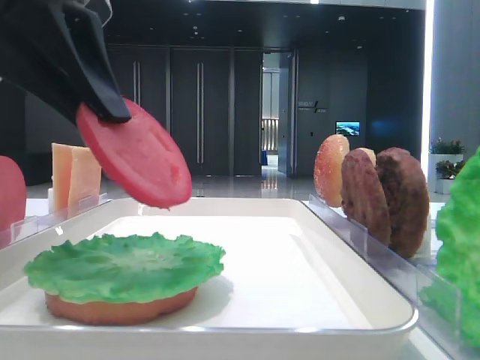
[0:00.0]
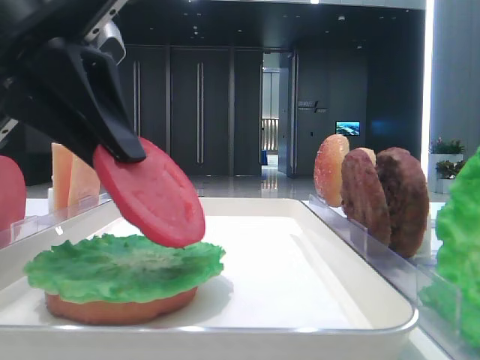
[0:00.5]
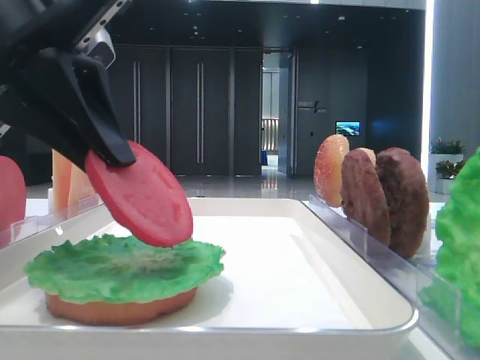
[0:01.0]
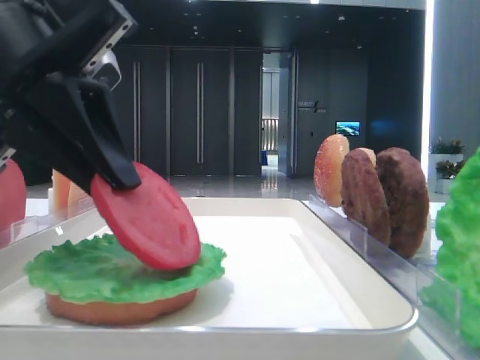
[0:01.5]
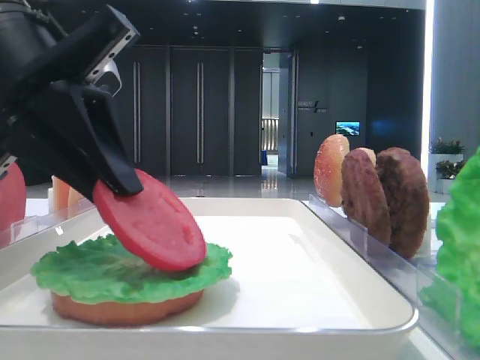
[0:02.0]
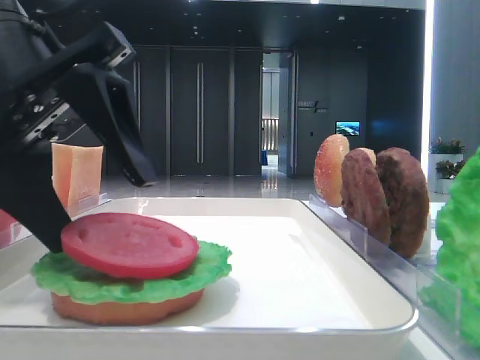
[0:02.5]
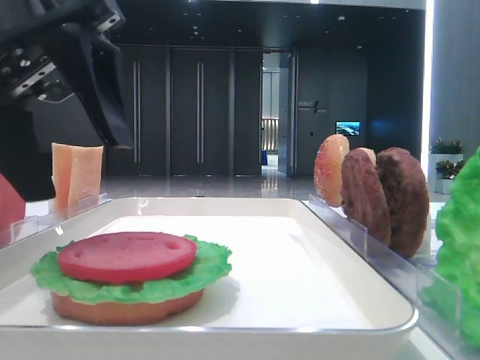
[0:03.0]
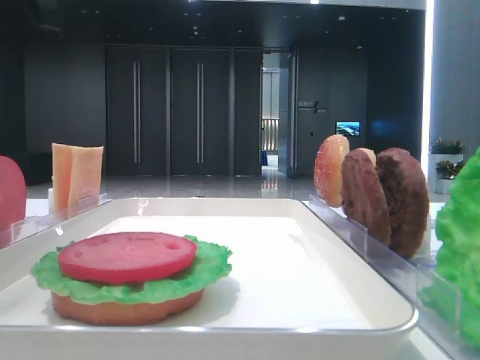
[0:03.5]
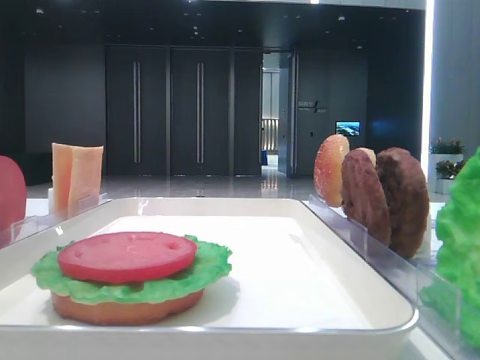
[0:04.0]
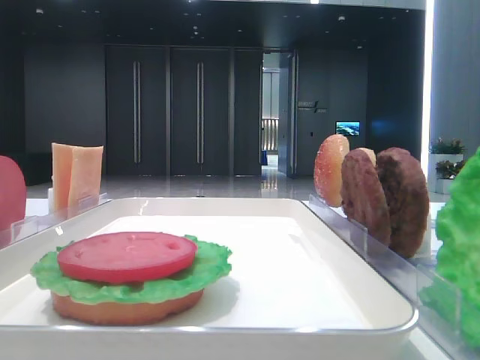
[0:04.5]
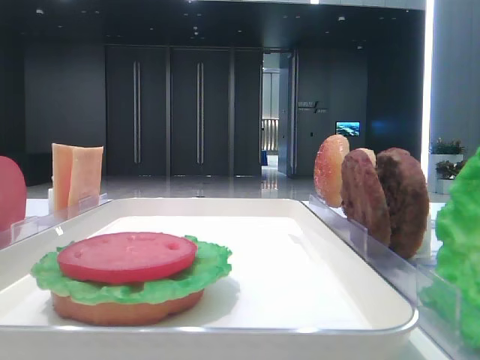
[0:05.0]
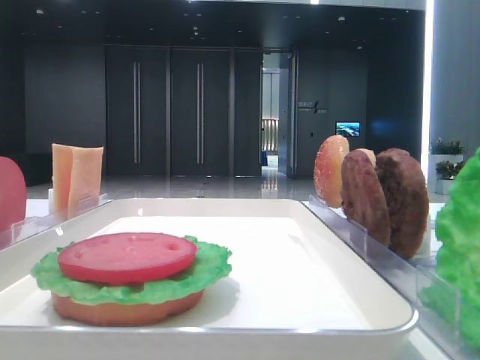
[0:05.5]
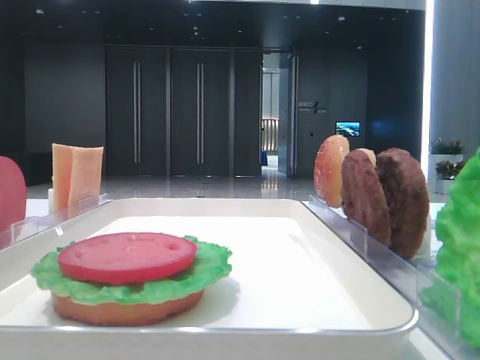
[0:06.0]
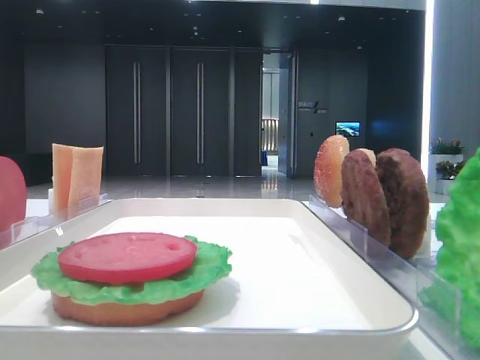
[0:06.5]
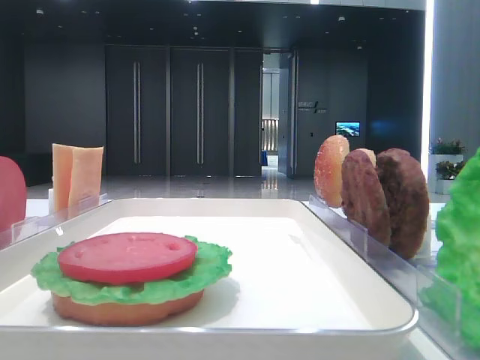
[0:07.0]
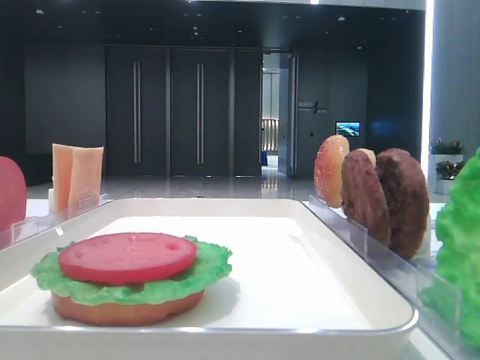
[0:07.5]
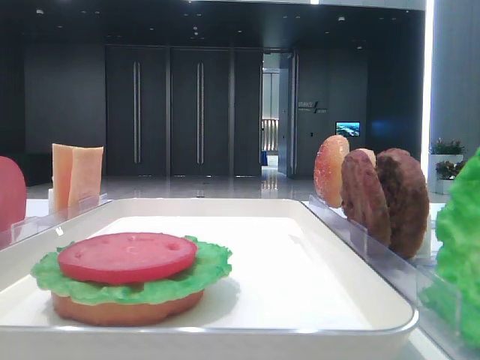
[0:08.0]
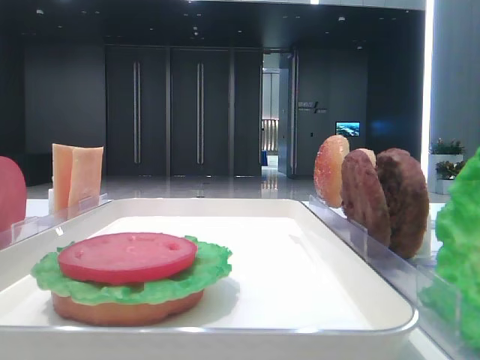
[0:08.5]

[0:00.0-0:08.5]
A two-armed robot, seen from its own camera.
Step, 0:00.0 to 0:02.5: Place the tomato slice on the lettuce leaf with the left hand.
0:00.0 to 0:02.0: The left gripper changes place by about 5 cm.
0:02.0 to 0:04.0: The left gripper goes about 15 cm upward and to the left, and opens its fingers.

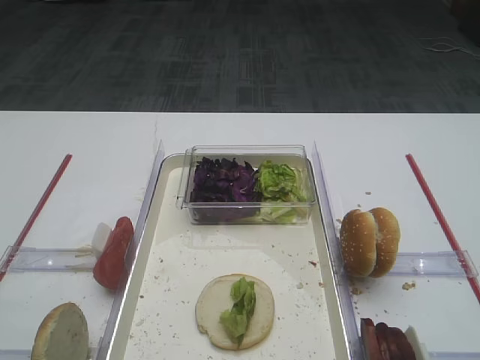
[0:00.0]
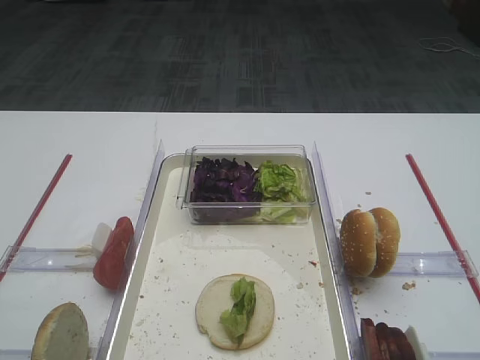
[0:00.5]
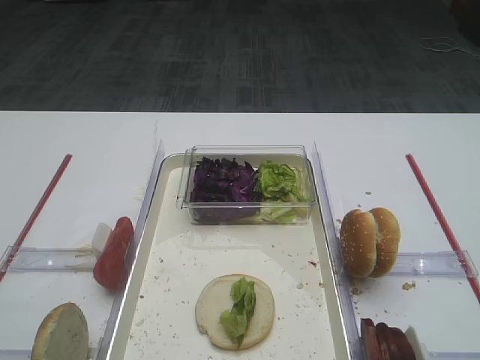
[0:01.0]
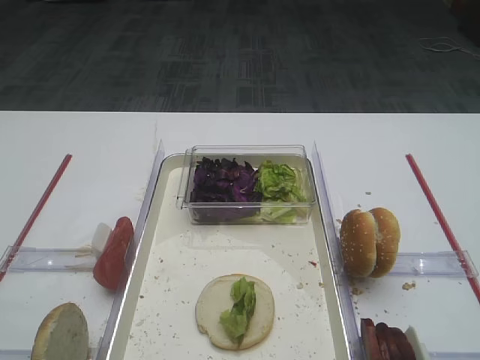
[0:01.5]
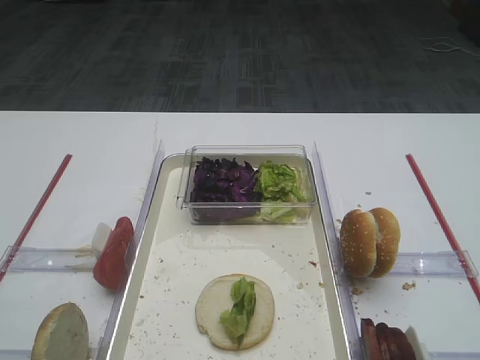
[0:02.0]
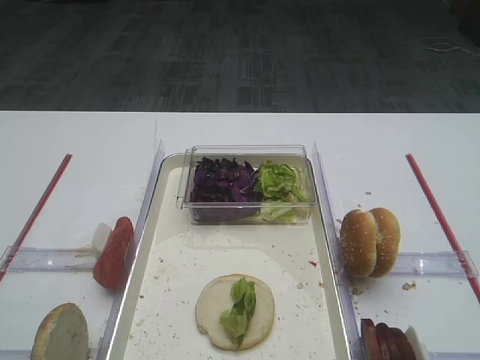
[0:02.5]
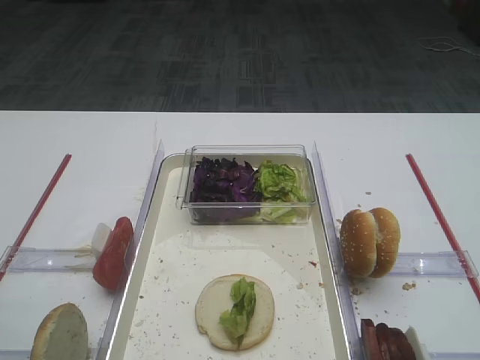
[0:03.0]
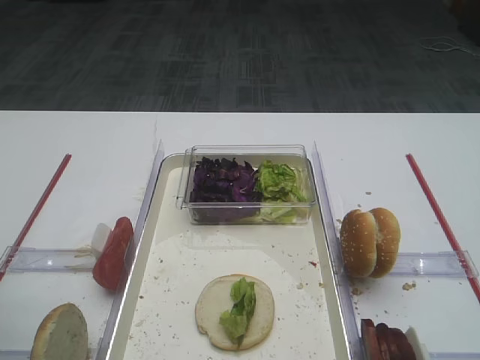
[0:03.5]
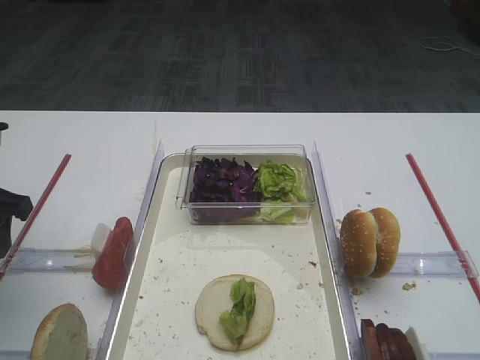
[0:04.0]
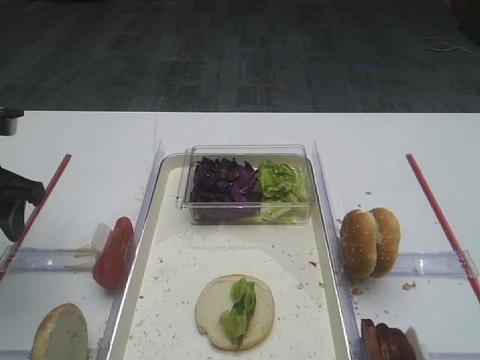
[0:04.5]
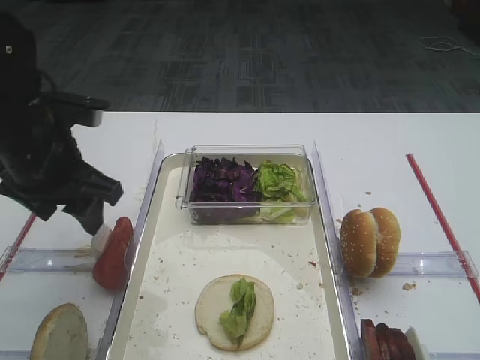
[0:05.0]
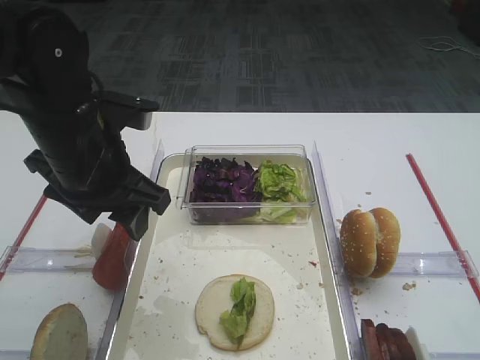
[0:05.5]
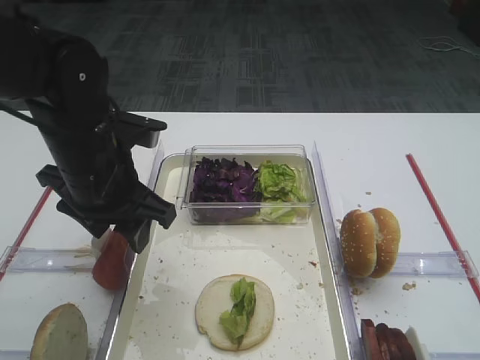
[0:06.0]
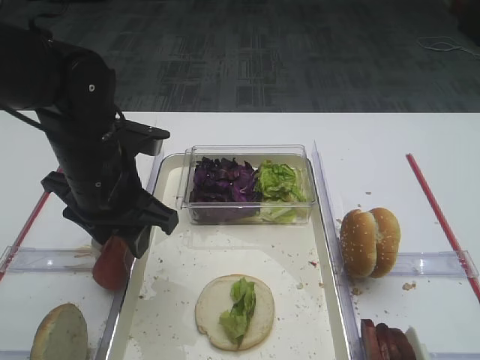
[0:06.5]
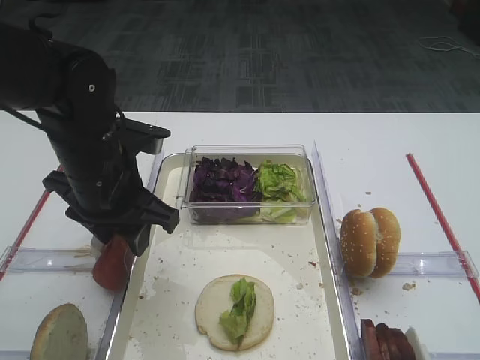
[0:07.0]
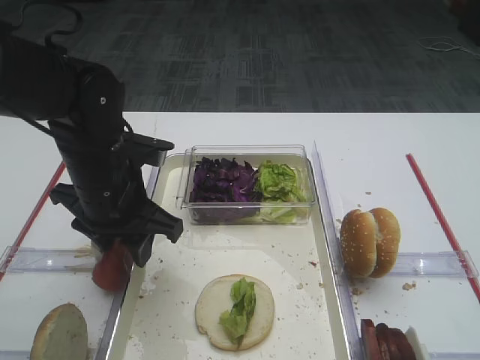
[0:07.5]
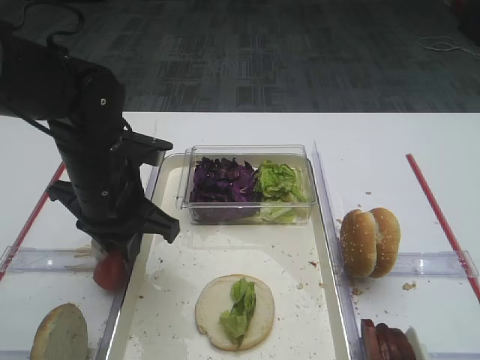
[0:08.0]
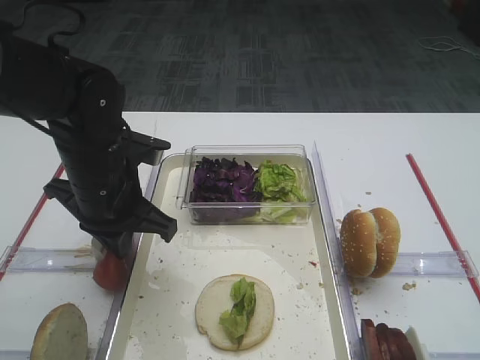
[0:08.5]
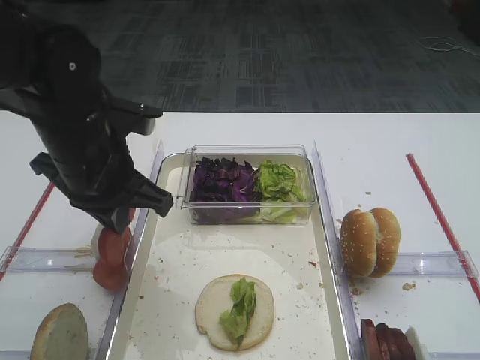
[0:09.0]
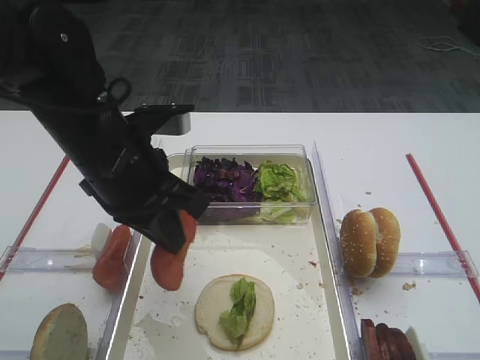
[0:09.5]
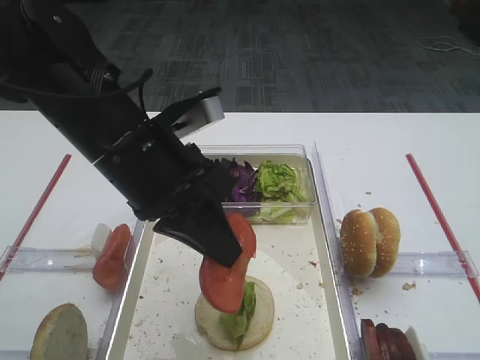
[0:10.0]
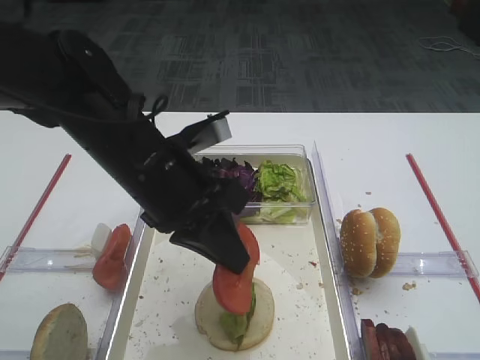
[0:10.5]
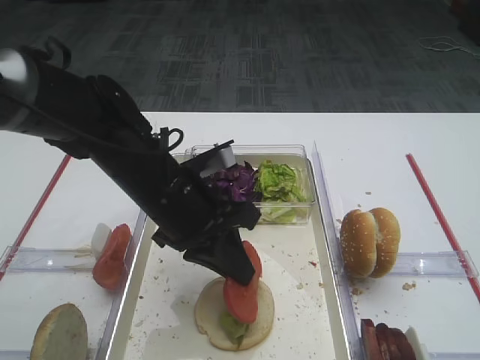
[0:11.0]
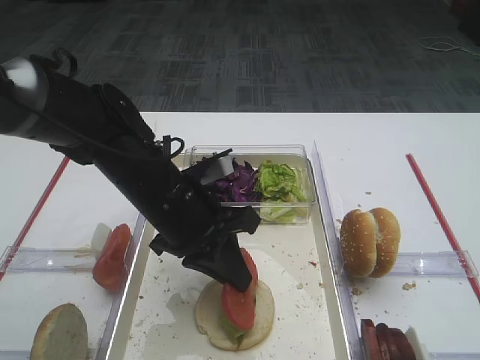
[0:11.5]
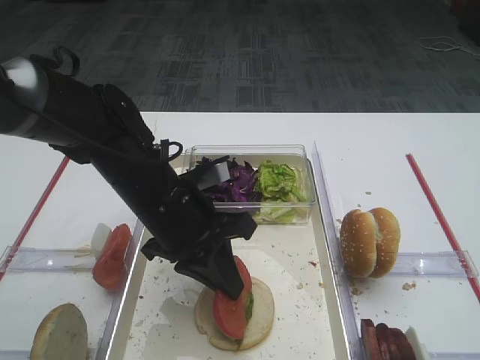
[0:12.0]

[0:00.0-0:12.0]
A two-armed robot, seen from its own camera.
Step, 0:00.0 to 0:09.0: Pick up the tomato slice with the left gripper.
0:02.0 to 0:04.0: The left gripper heads forward, covering about 30 cm.
0:04.0 to 0:06.0: The left gripper is displaced to the right by some 15 cm.
0:06.0 to 0:08.0: The left gripper closes its fingers.
0:08.0 to 0:10.0: The left gripper goes about 10 cm upward and backward, and closes its fingers.
0:10.0 to 0:12.0: The left gripper is displaced downward by roughly 10 cm.

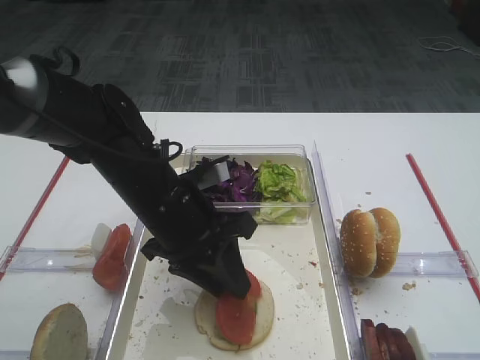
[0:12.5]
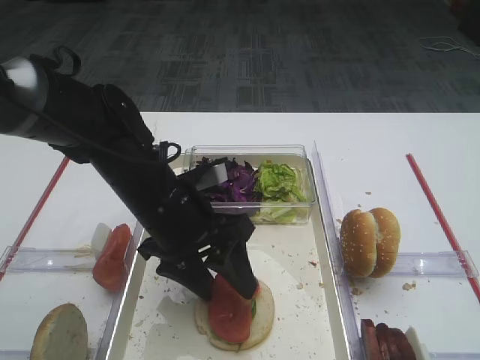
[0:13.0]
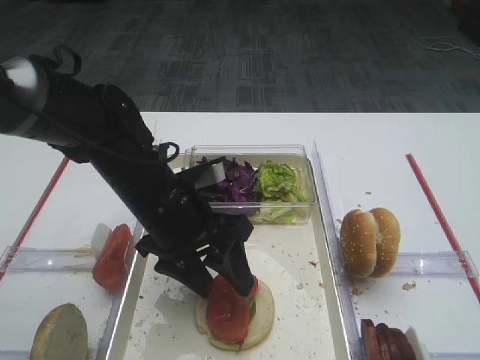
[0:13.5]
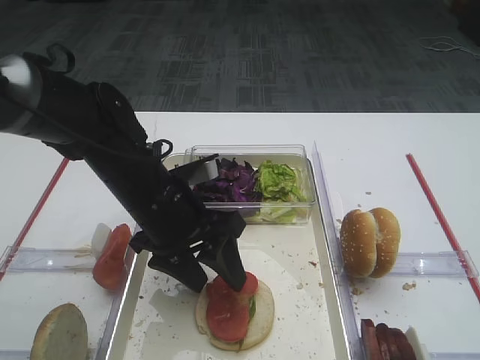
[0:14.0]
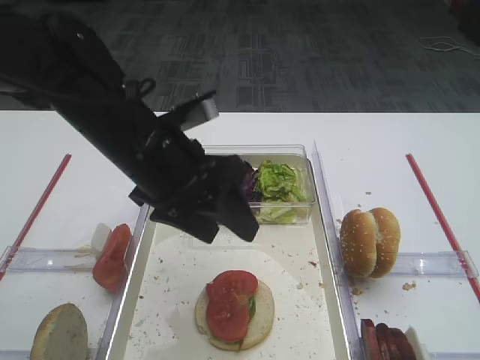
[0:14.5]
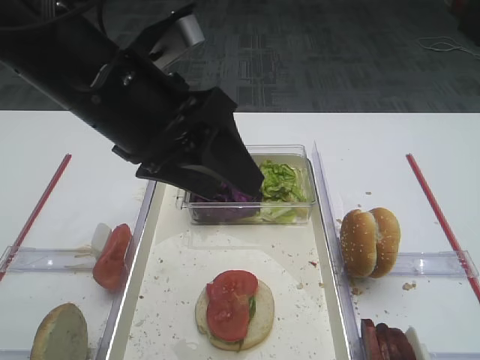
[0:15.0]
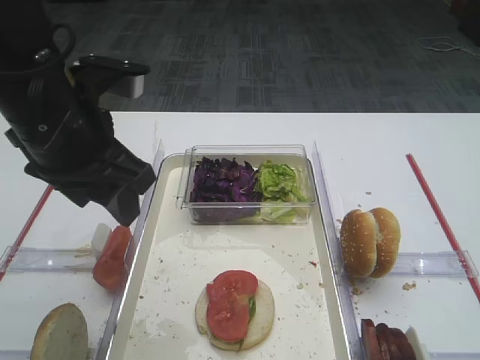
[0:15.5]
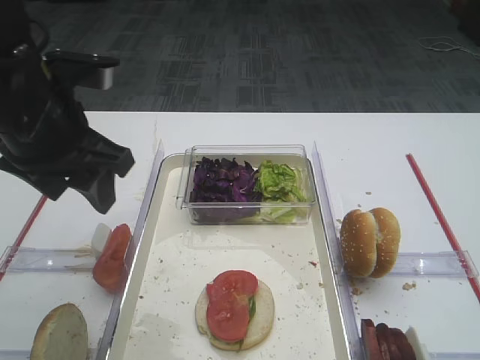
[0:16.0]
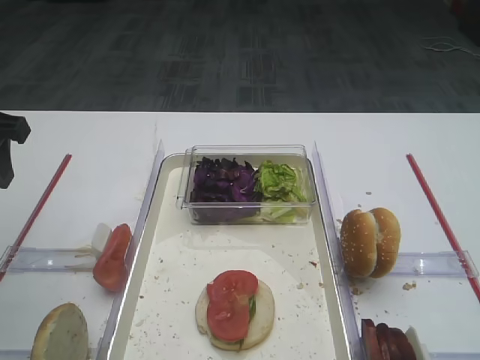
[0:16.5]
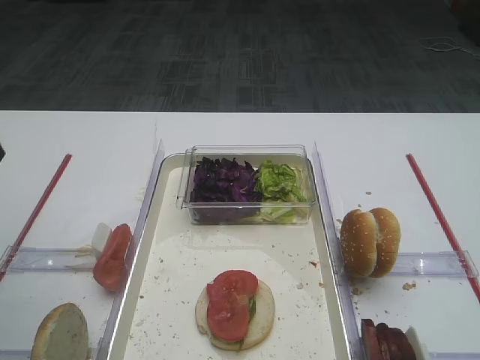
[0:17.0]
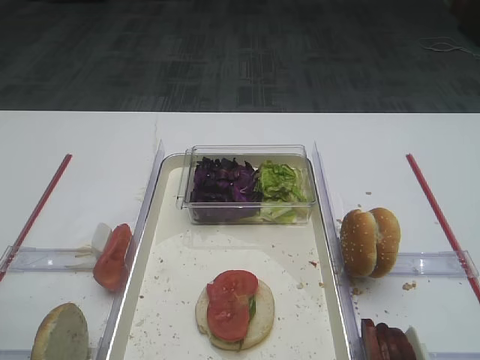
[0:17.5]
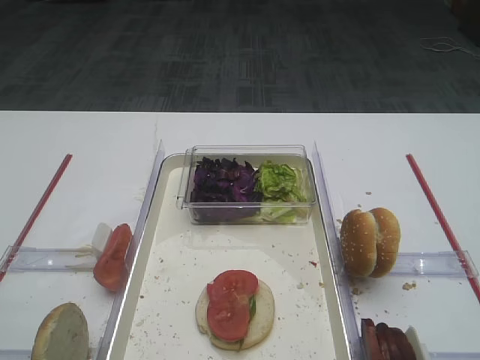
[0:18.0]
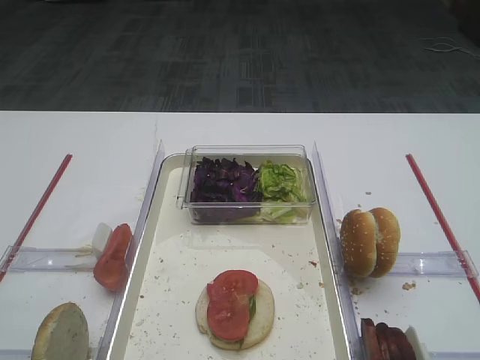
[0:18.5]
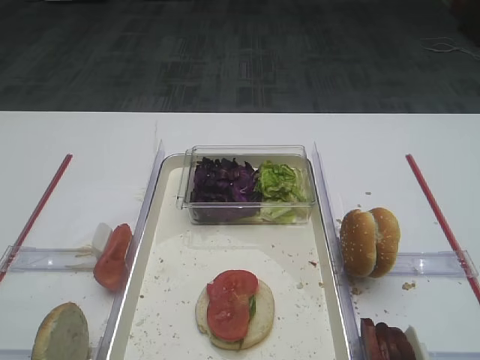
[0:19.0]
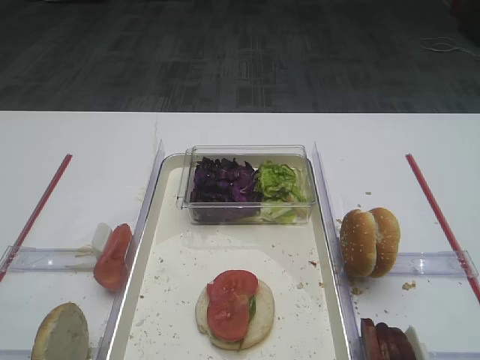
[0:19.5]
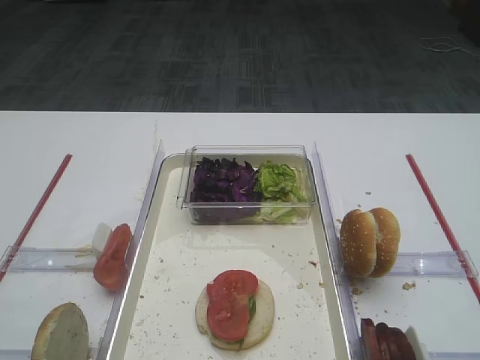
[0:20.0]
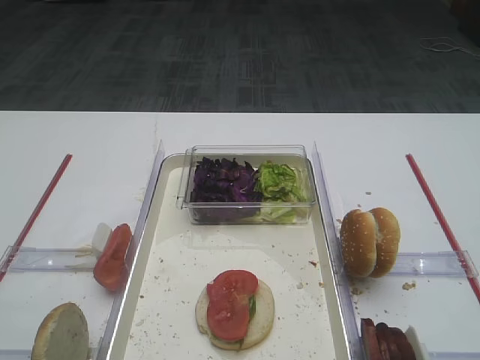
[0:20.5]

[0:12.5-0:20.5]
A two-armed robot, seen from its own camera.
0:12.5 to 0:14.5: The left gripper goes some 5 cm upward, and opens up.
0:14.5 to 0:16.5: The left gripper heads to the left, covering some 20 cm.
0:16.5 to 0:18.5: The left gripper moves backward, some 25 cm.
